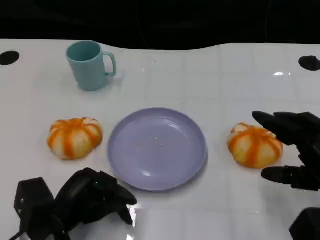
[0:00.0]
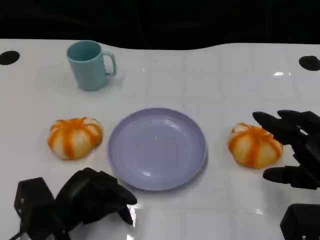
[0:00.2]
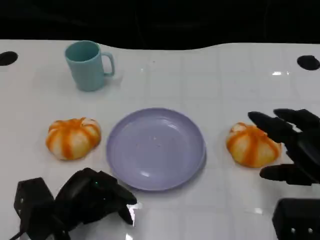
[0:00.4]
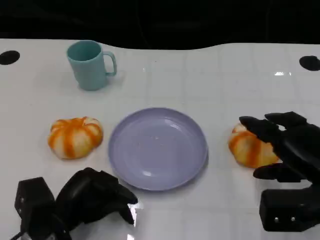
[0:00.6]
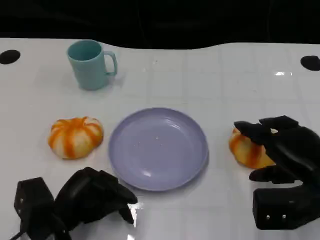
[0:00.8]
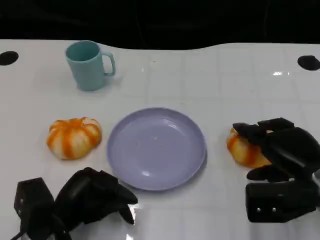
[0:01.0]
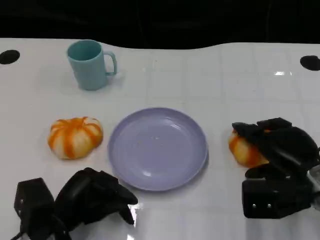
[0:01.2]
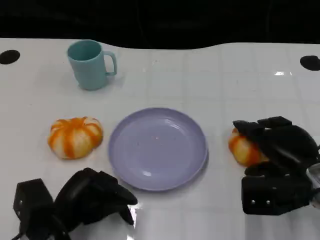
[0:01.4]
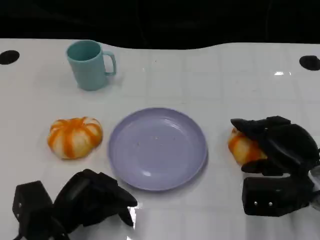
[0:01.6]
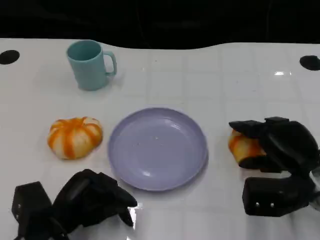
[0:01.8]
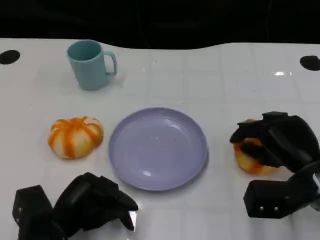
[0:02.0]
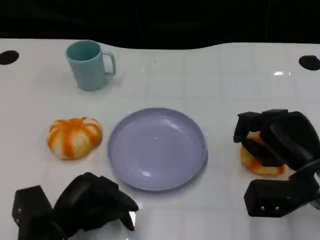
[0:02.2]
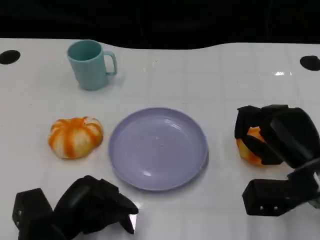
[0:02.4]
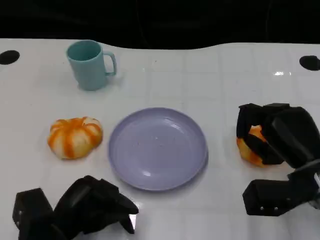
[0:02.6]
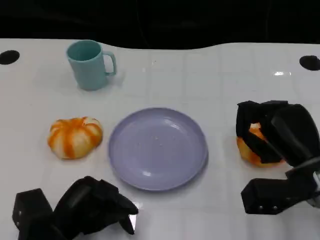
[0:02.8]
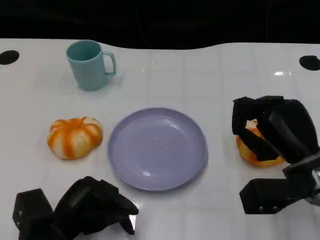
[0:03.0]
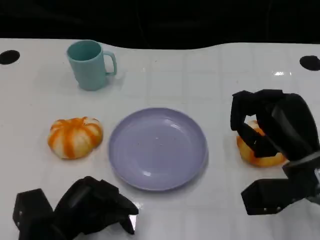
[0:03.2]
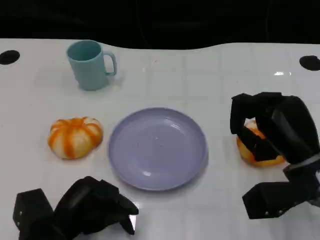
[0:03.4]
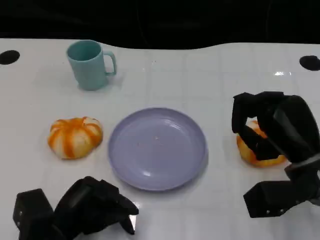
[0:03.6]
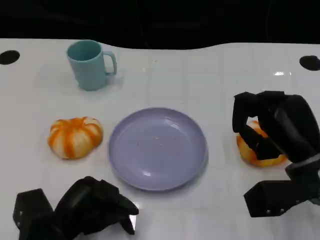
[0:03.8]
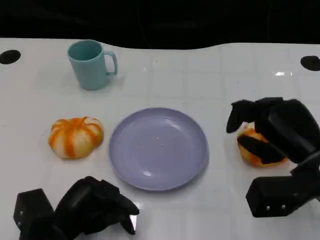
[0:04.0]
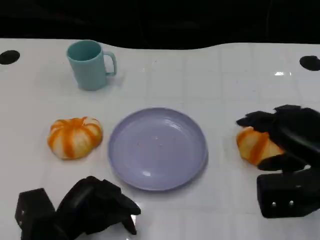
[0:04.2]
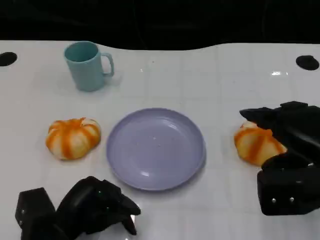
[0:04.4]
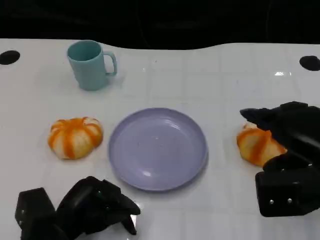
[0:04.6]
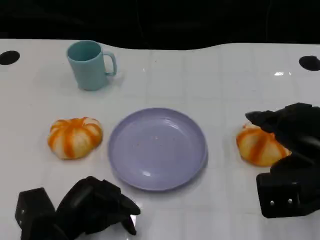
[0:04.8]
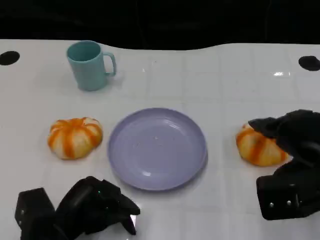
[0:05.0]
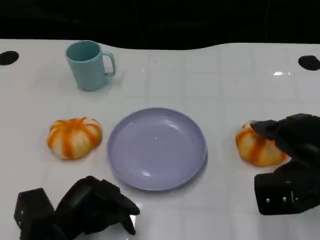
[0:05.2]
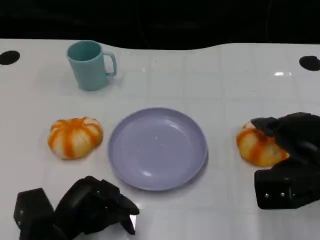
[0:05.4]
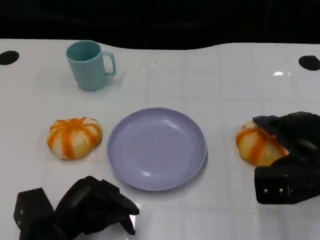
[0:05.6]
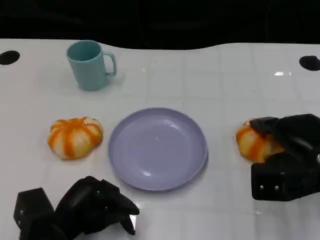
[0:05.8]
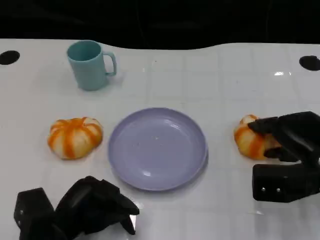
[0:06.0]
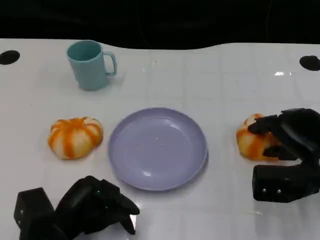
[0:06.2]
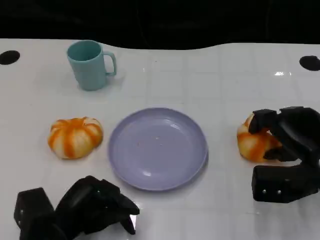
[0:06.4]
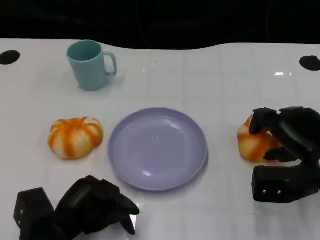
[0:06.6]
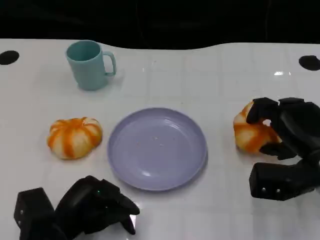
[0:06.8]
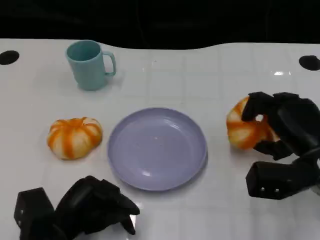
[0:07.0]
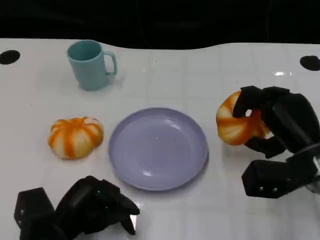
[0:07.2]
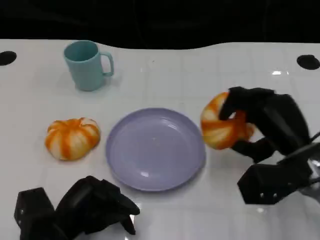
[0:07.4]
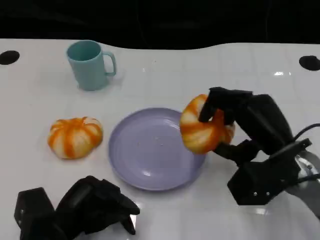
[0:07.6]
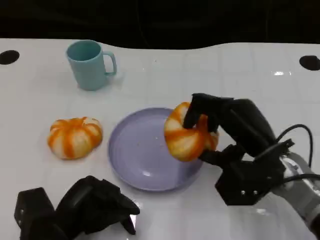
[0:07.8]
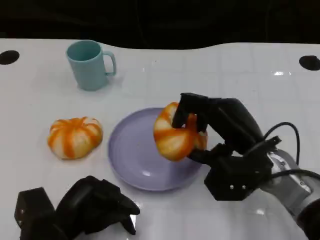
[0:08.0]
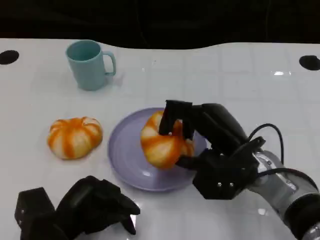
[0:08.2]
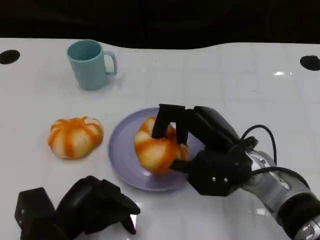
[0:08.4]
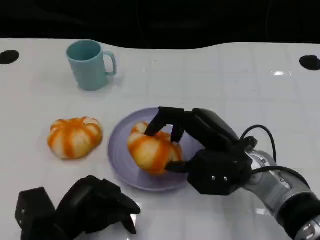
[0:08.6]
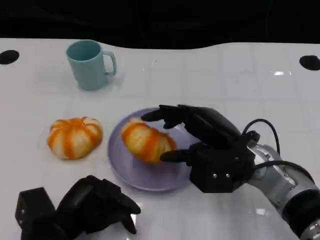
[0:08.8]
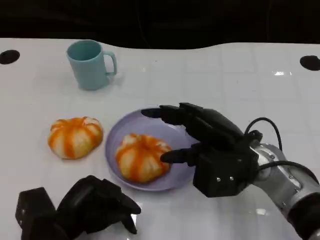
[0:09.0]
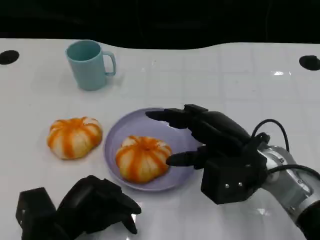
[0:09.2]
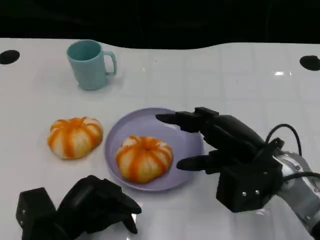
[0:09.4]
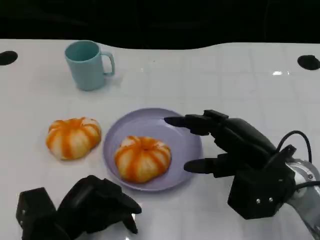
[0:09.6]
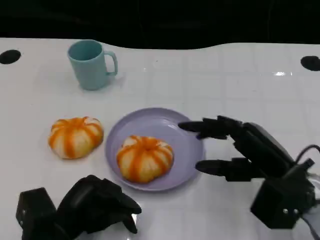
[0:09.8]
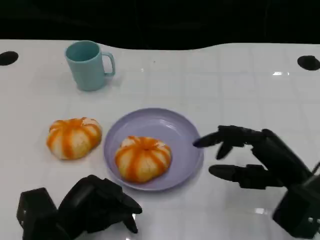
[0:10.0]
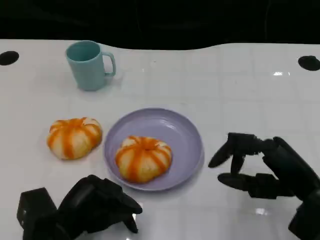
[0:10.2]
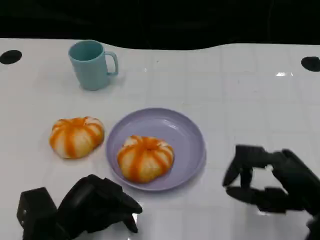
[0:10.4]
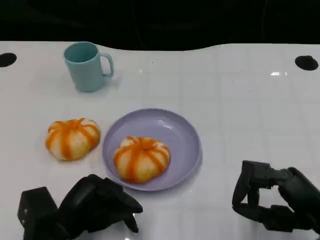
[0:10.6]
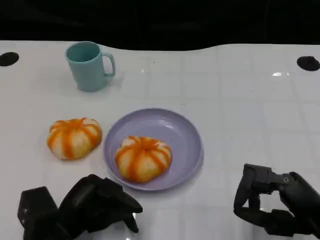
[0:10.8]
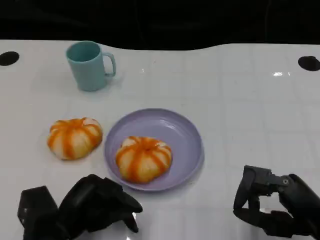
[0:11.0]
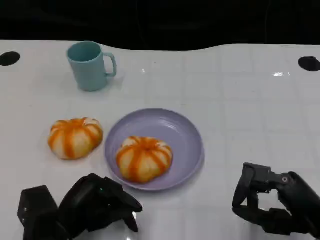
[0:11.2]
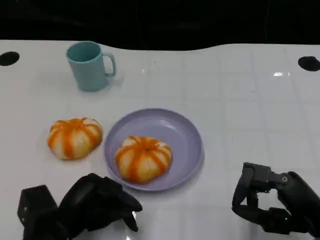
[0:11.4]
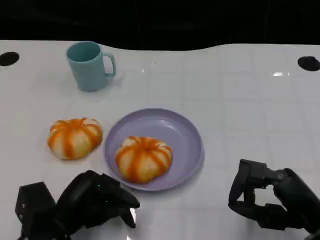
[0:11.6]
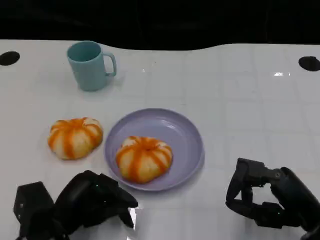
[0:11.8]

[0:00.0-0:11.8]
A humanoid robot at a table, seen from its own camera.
Task of the whole recording: Grasp the bread from the table and place it into the plate.
0:00.0 to 0:01.4: The right hand is displaced forward by some 5 cm.
0:03.0 to 0:04.4: The right hand goes about 5 cm upward.
0:04.4 to 0:06.0: The right hand shifts approximately 5 cm downward.
0:06.0 to 0:07.4: The right hand shifts by approximately 5 cm.
0:07.4 to 0:08.8: The right hand shifts about 5 cm to the left.
0:08.8 to 0:10.4: The right hand goes roughly 15 cm to the right and backward.
0:10.4 to 0:11.8: The hands move only a little.

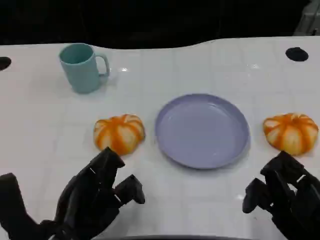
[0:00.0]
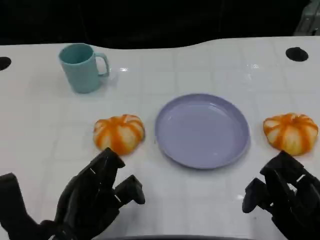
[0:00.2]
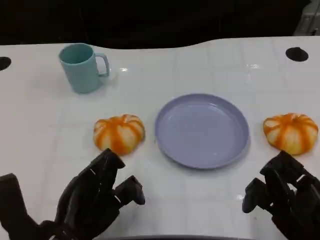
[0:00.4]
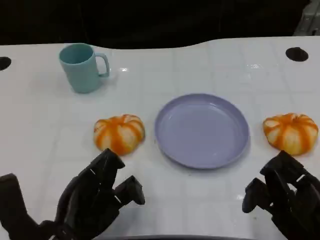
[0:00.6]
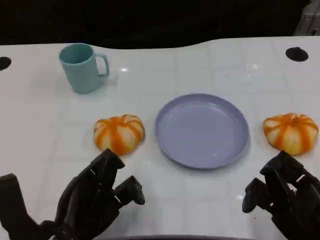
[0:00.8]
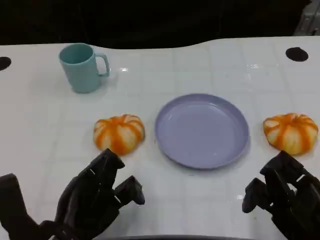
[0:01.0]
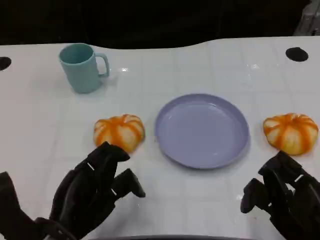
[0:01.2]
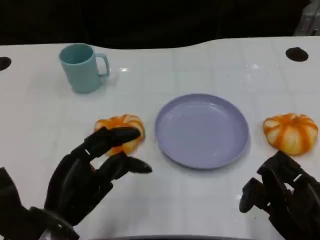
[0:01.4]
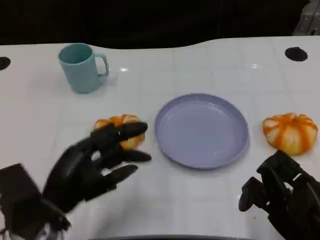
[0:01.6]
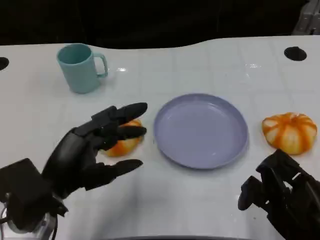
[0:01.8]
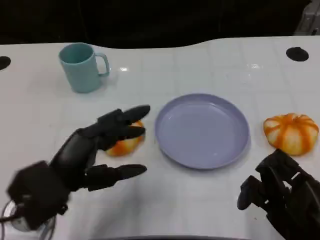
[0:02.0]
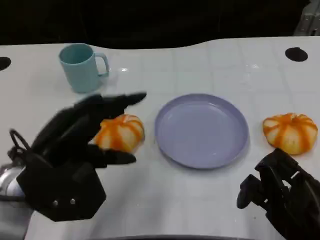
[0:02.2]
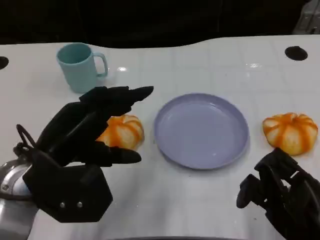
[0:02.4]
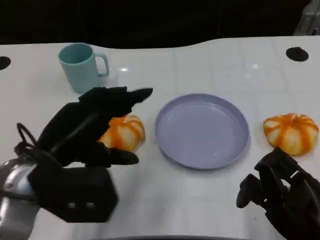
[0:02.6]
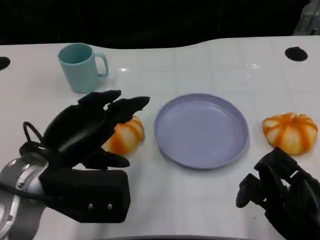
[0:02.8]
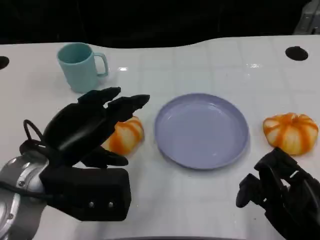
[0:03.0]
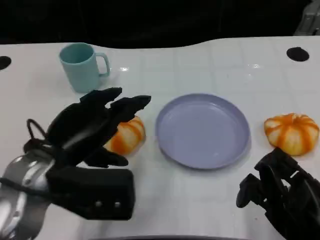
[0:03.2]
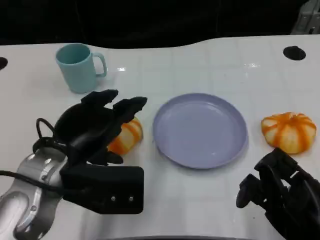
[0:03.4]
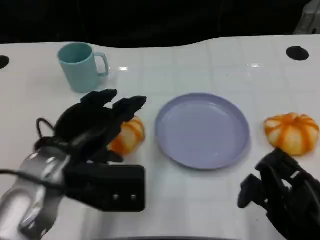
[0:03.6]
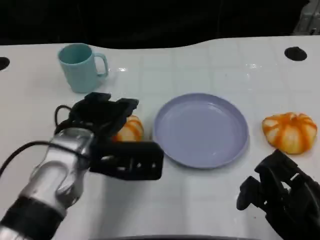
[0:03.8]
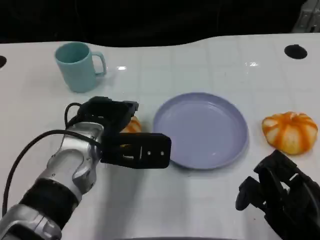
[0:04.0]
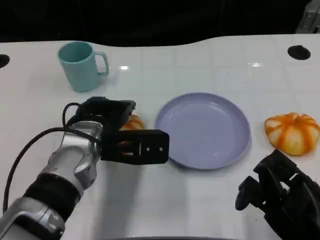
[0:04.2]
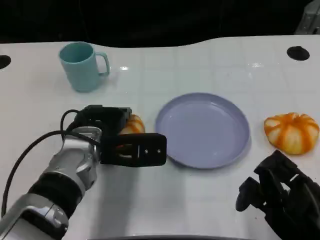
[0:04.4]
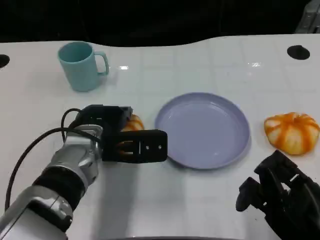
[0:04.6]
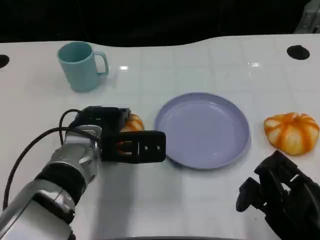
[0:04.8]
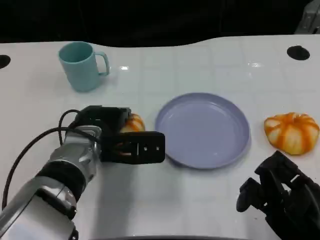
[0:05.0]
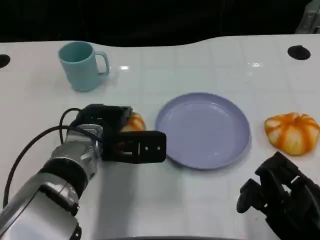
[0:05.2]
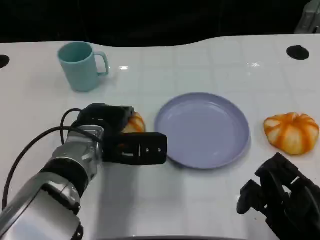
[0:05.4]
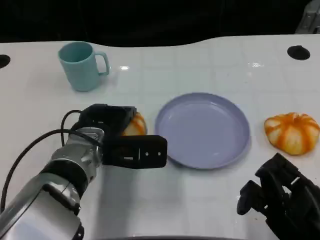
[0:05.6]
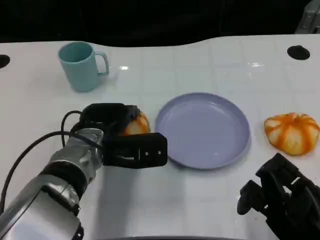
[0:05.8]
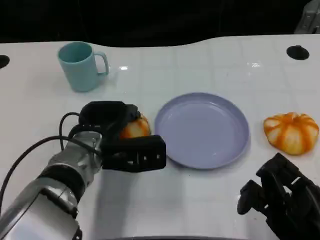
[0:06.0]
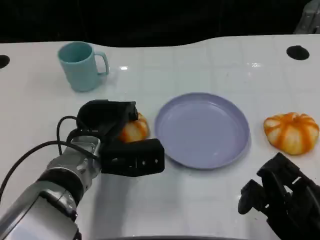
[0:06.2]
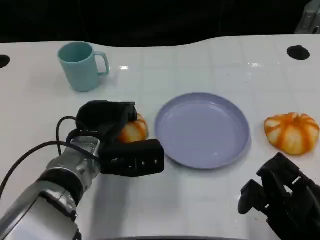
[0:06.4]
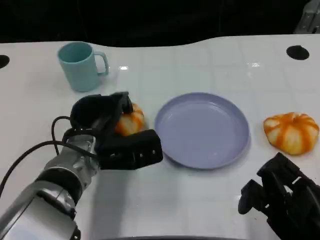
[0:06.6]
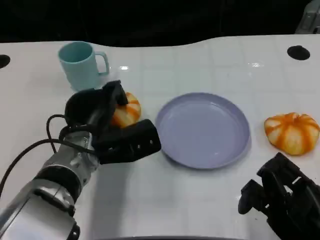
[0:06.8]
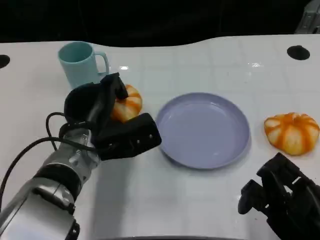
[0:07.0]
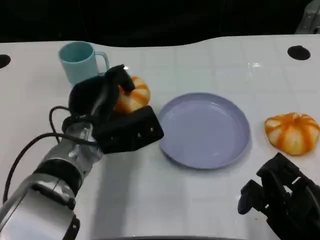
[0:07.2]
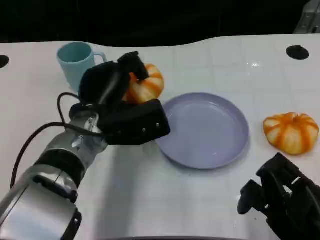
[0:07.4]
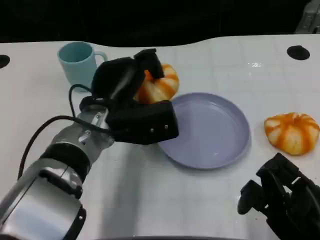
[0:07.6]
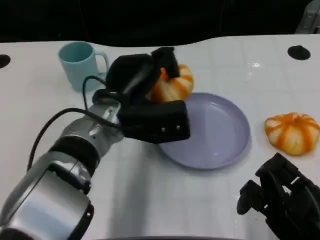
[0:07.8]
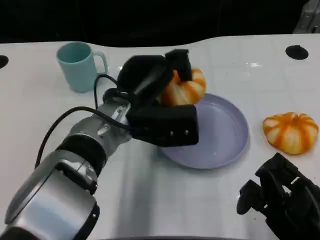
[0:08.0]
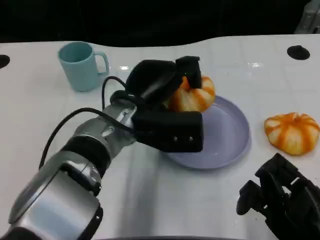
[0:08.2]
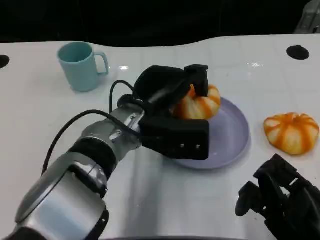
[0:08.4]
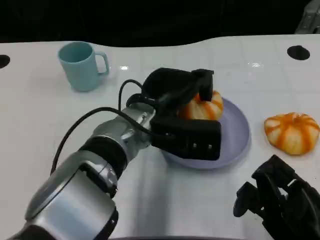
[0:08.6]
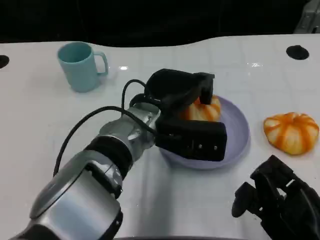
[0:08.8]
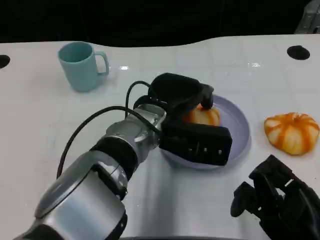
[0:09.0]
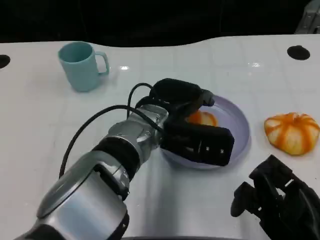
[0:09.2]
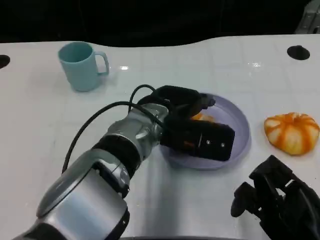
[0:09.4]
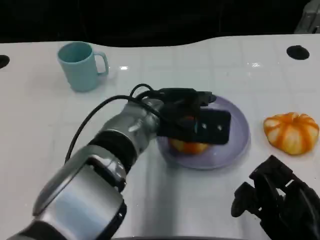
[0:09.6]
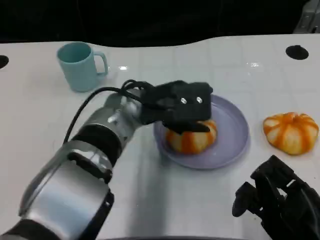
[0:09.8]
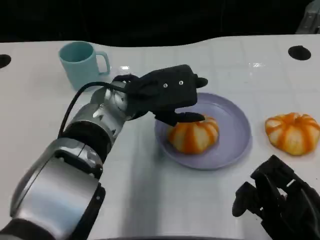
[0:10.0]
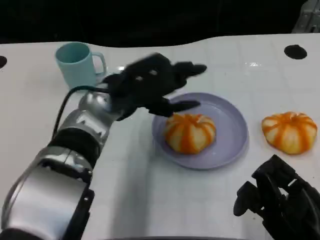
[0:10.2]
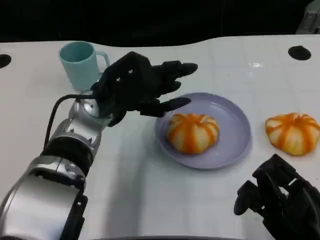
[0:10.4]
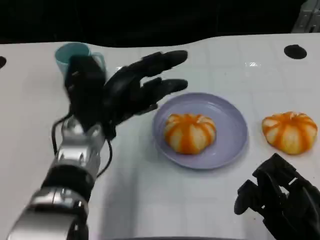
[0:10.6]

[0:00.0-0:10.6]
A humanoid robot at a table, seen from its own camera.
Task of the whole recording: Grasp the bread from the table and place it into the plate.
0:01.6 to 0:03.0: The left hand shifts some 5 cm upward.
0:03.0 to 0:04.6: The left hand shifts some 10 cm forward, to the right and downward.
0:04.6 to 0:06.0: There are only small adjustments of the hands.
0:06.0 to 0:07.6: The left hand moves some 5 cm.
0:07.6 to 0:09.0: The left hand shifts some 5 cm to the right.
0:09.0 to 0:10.6: The left hand shifts some 10 cm to the left.
